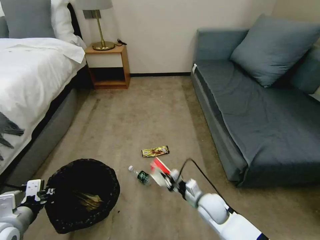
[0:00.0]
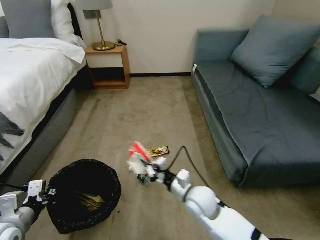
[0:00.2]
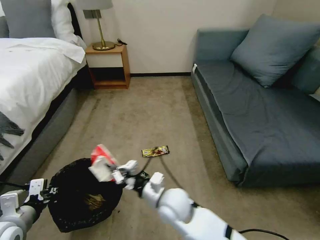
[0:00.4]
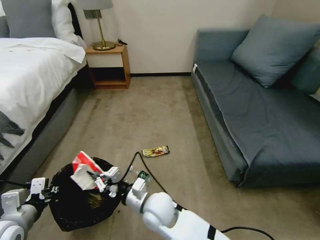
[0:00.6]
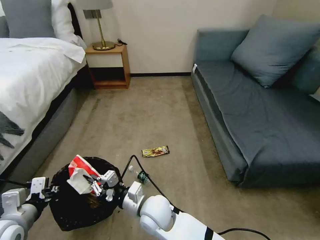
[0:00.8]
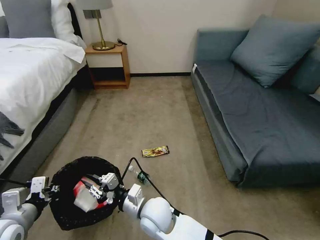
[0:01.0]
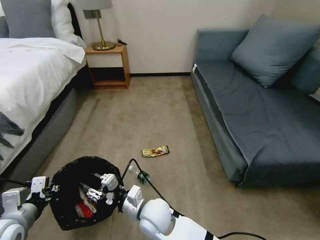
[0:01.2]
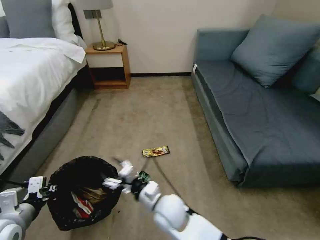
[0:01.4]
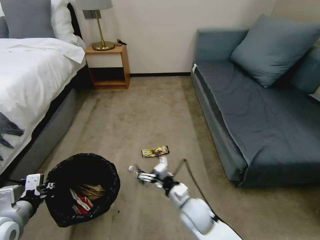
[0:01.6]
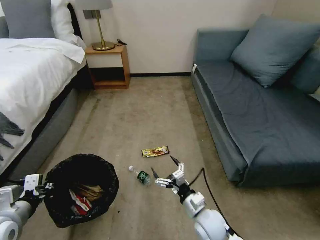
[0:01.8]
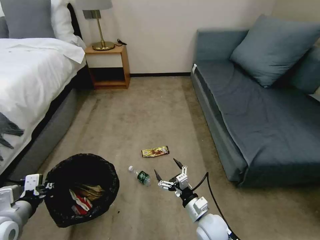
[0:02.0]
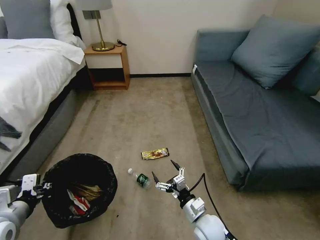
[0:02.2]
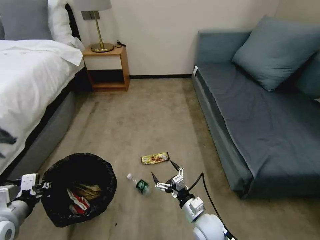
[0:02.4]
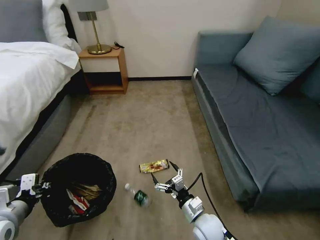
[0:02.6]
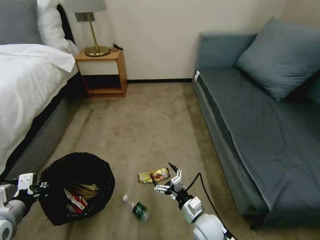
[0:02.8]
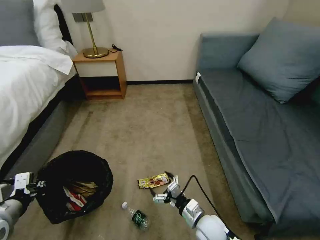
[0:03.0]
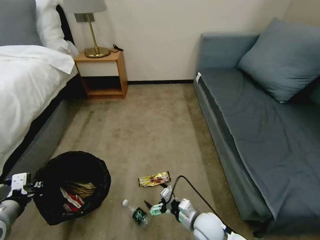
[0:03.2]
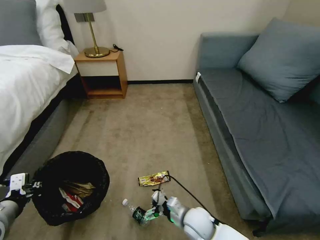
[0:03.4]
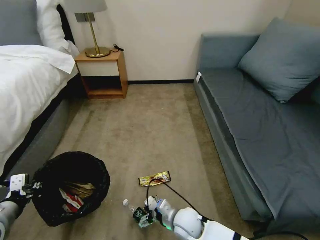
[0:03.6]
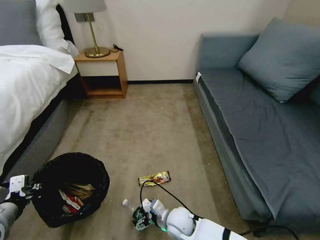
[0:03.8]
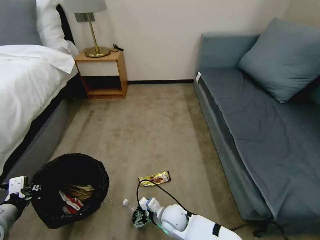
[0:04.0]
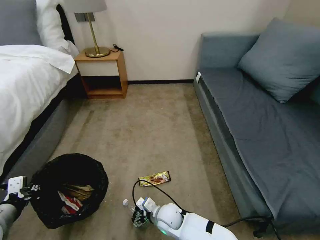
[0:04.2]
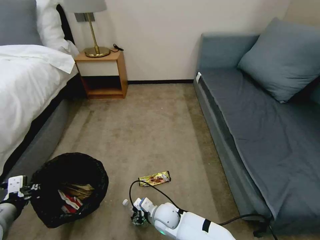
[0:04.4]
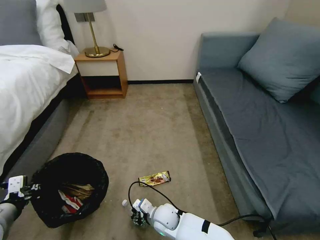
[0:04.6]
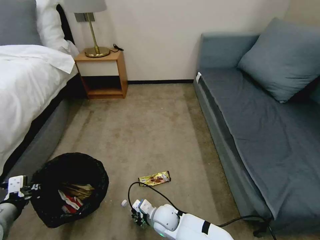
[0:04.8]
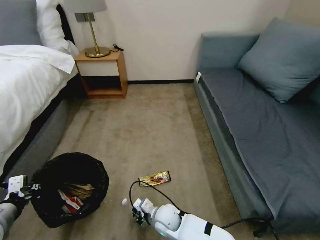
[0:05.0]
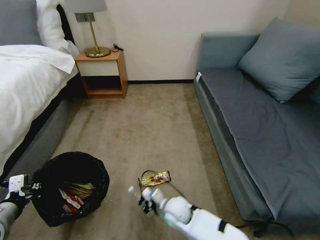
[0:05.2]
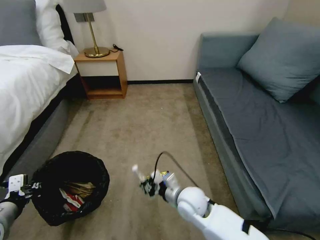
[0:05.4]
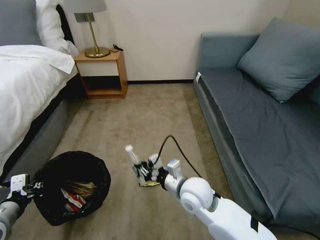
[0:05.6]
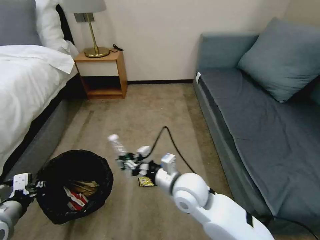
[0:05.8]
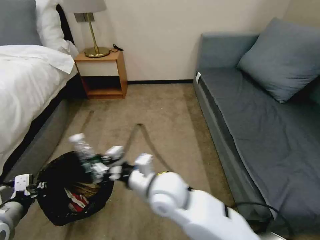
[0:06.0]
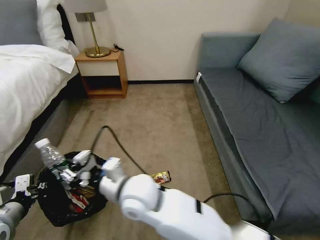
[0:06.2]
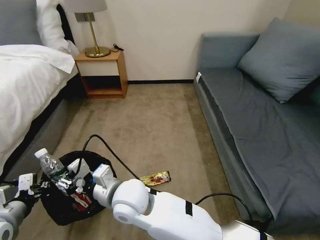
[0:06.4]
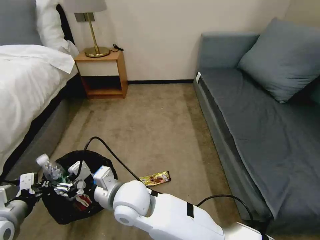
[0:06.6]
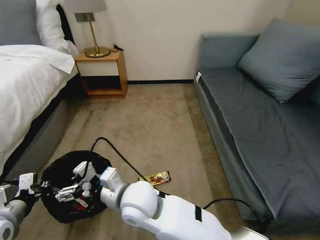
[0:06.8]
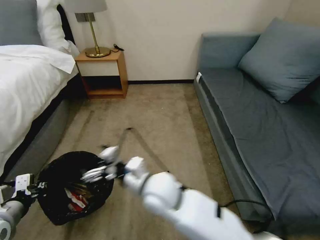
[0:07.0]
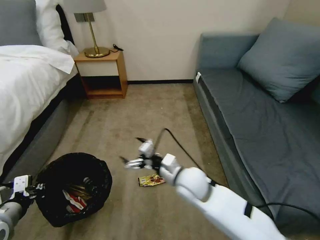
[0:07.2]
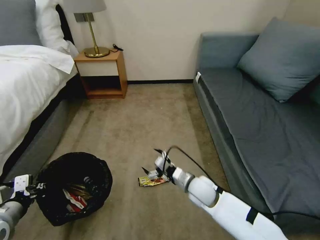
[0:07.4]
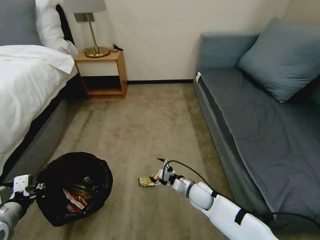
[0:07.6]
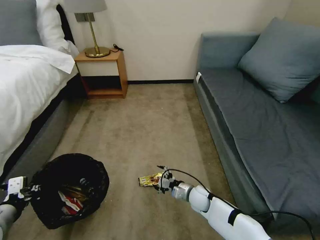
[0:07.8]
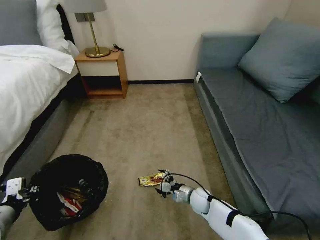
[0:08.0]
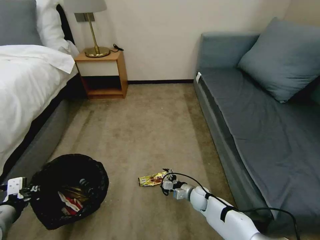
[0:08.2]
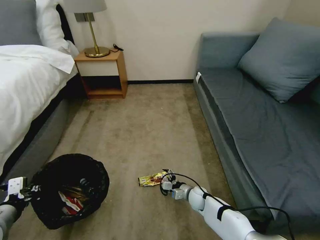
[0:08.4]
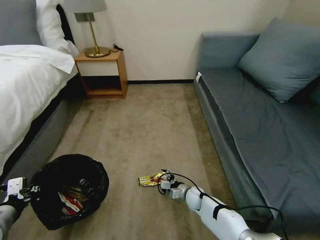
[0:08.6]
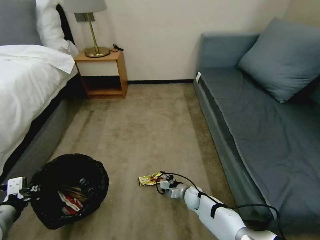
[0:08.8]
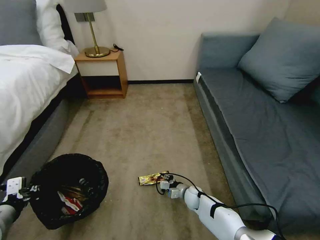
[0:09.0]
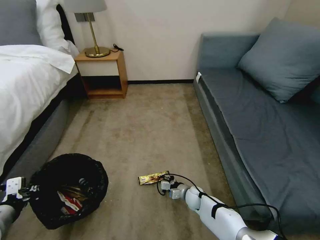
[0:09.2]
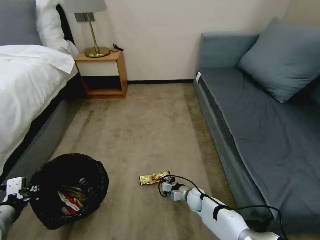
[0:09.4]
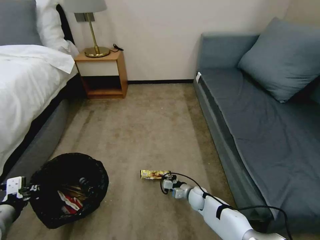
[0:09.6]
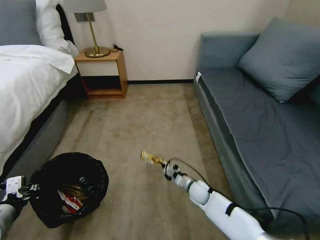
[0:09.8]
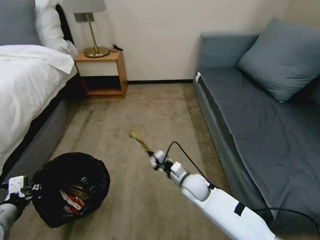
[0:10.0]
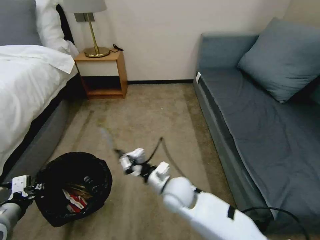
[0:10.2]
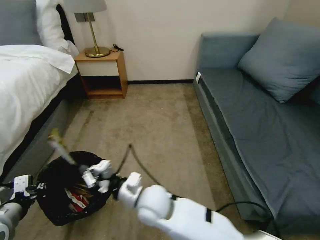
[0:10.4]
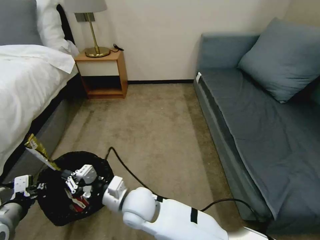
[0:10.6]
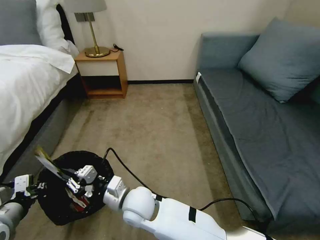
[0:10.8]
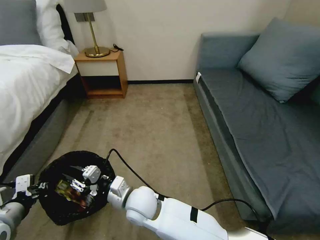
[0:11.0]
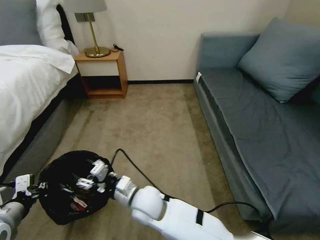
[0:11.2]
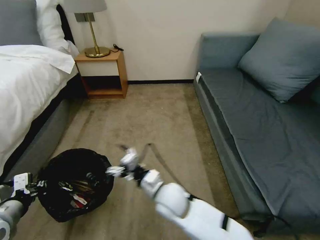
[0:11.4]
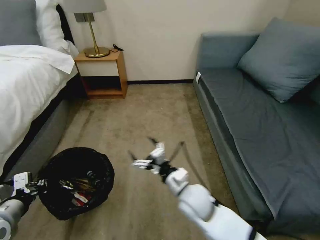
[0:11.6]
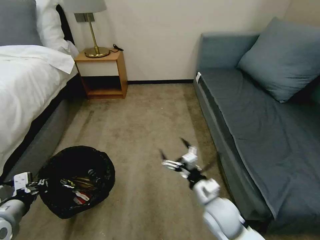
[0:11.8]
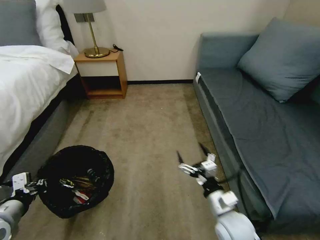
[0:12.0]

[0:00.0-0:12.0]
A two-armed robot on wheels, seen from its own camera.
Task of the whole recording: Pick up the trash bin, then pick up the garbage on the floor and place it into the trash bin.
0:00.0 to 0:01.6: The right gripper heads to the left, covering about 10 cm, and opens up.
0:01.6 to 0:03.0: The right gripper goes roughly 5 cm to the right.
0:03.0 to 0:04.4: The right gripper travels to the left by approximately 15 cm.
0:04.4 to 0:06.0: The right gripper heads upward, covering roughly 25 cm, and closes up.
0:06.0 to 0:07.6: The right gripper moves downward and to the right, some 25 cm, and opens its fingers.
0:07.6 to 0:09.0: The right gripper goes some 10 cm downward, and closes up.
0:09.0 to 0:10.4: The right gripper heads upward and to the left, covering approximately 35 cm, and closes up.
0:10.4 to 0:12.0: The right gripper travels to the right by roughly 25 cm, and opens.

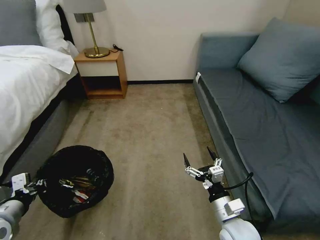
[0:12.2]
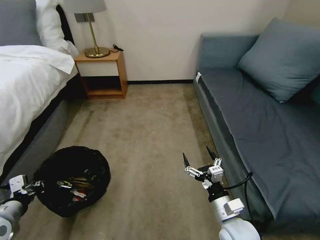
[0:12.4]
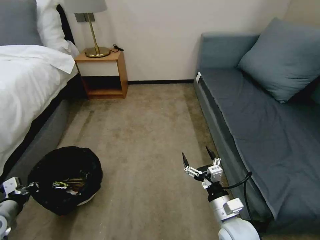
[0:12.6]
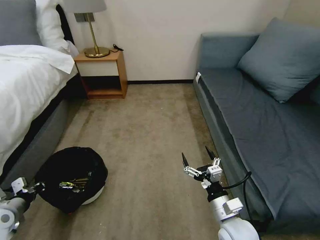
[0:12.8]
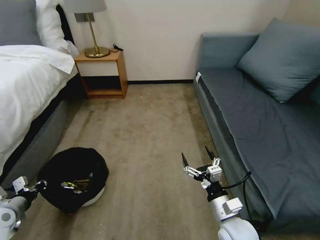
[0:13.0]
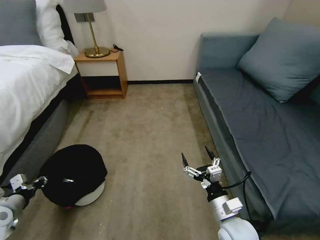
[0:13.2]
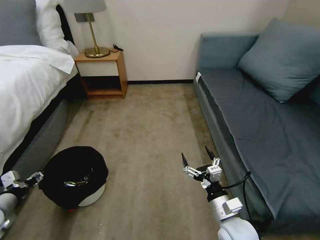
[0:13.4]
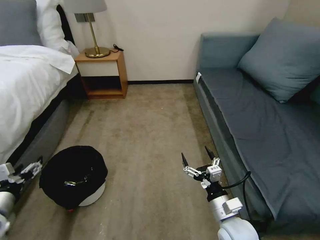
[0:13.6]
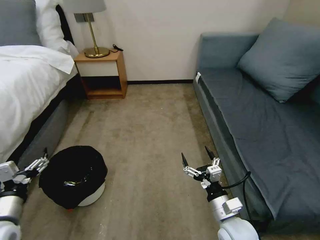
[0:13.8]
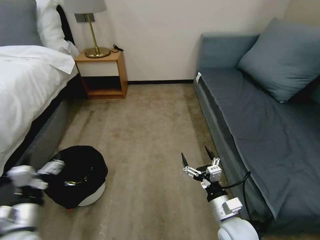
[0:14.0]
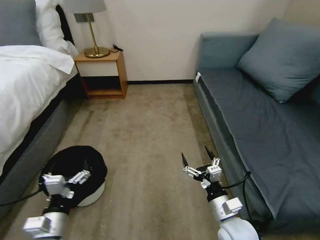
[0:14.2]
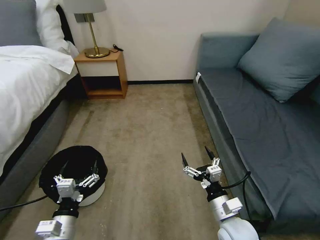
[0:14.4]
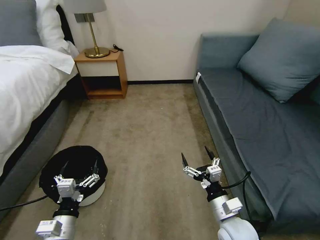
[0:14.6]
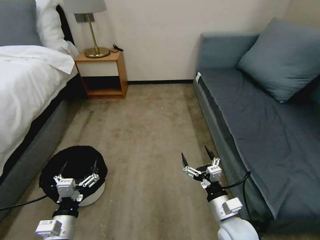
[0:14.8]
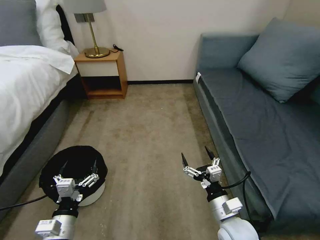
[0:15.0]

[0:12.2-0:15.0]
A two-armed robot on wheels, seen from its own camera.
Task of the whole recording: Pick up the trash bin, then pick up the garbage on the floor and place it into the trash bin.
0:12.2 to 0:13.6: The left gripper opens its fingers.
0:13.6 to 0:15.0: The left gripper goes some 20 cm to the right and downward.
